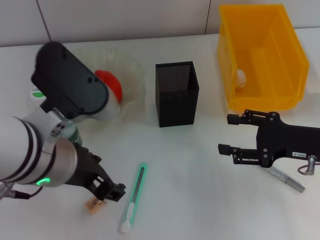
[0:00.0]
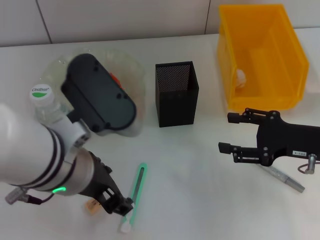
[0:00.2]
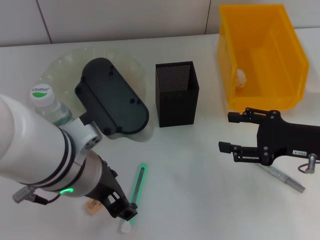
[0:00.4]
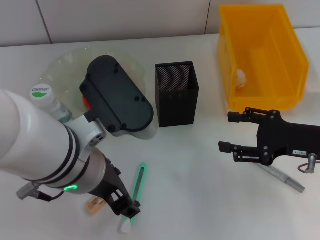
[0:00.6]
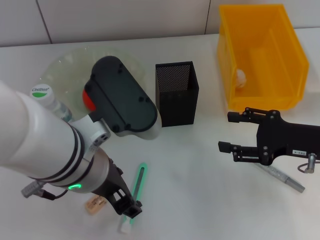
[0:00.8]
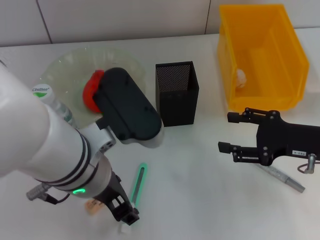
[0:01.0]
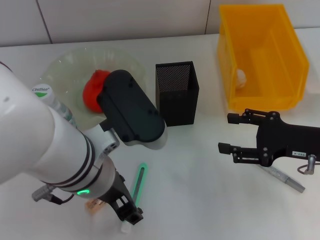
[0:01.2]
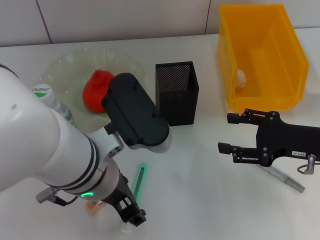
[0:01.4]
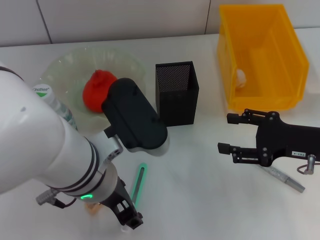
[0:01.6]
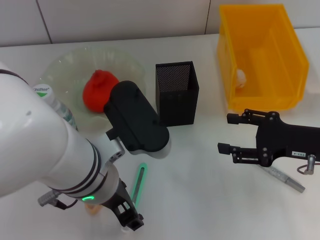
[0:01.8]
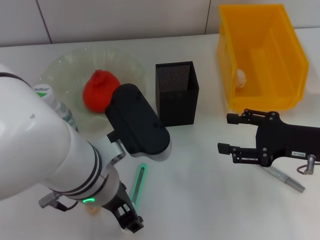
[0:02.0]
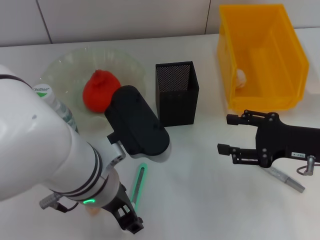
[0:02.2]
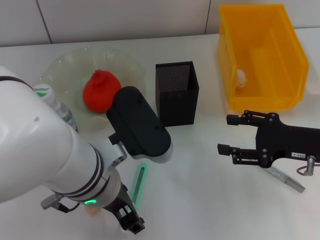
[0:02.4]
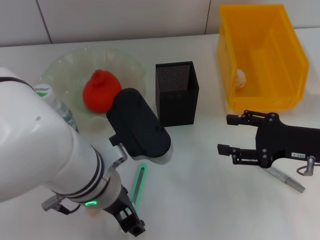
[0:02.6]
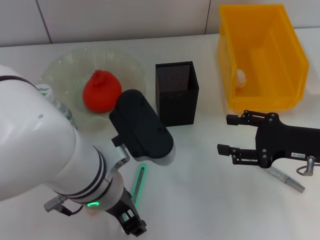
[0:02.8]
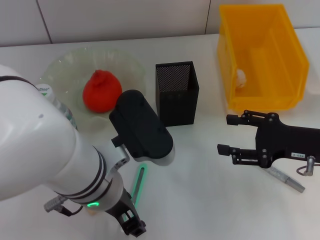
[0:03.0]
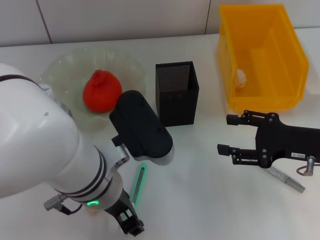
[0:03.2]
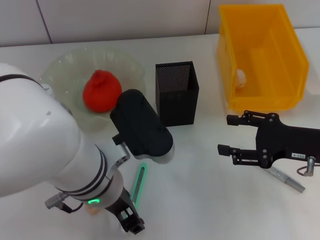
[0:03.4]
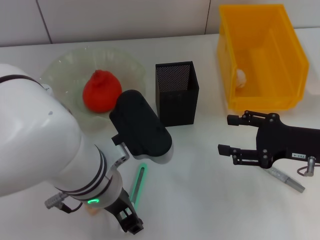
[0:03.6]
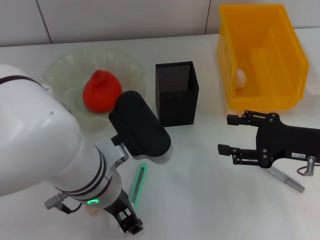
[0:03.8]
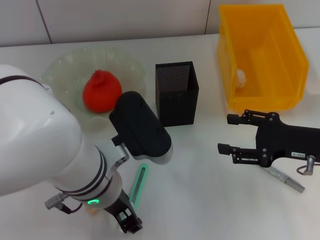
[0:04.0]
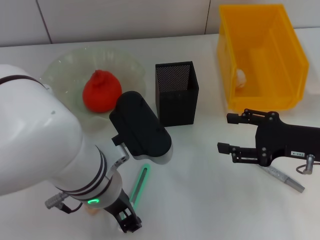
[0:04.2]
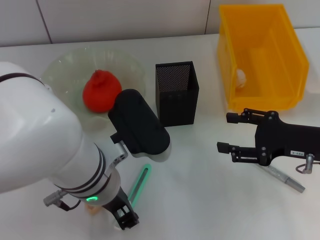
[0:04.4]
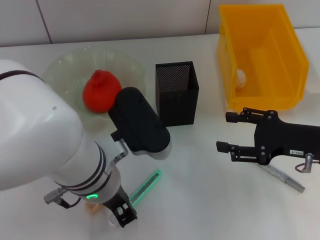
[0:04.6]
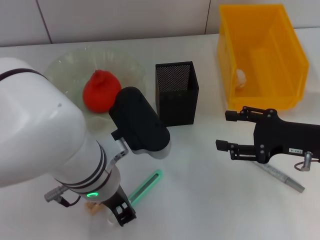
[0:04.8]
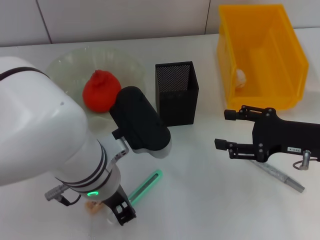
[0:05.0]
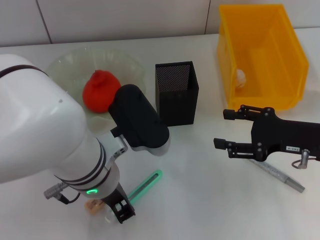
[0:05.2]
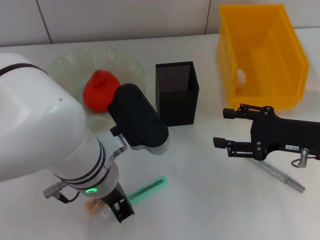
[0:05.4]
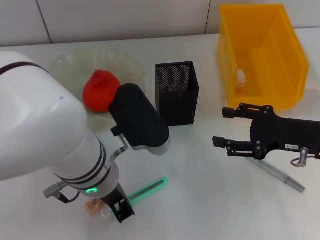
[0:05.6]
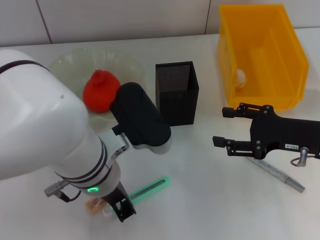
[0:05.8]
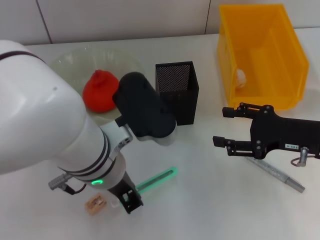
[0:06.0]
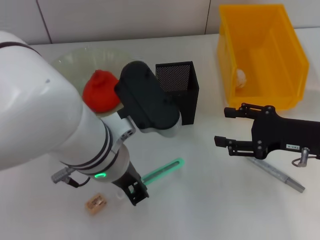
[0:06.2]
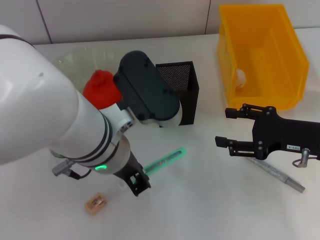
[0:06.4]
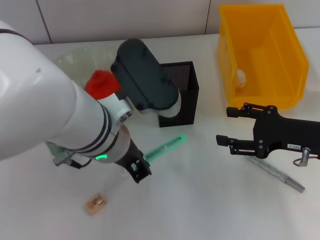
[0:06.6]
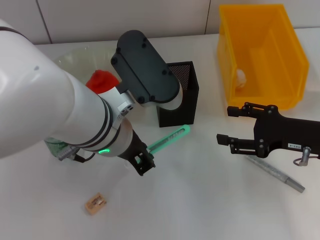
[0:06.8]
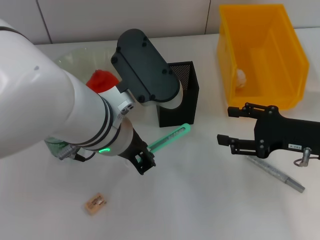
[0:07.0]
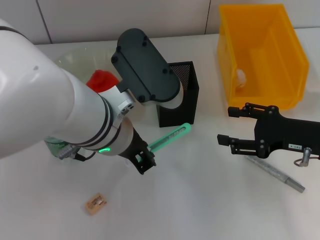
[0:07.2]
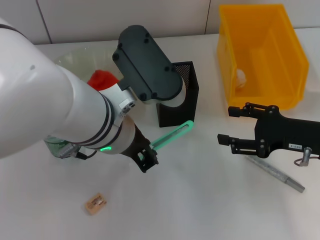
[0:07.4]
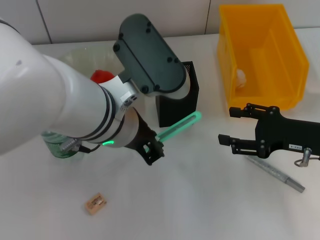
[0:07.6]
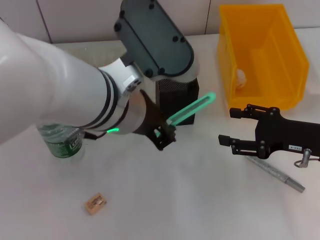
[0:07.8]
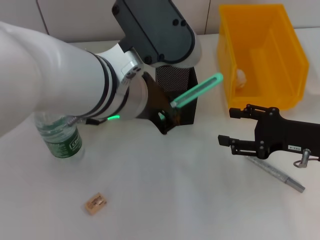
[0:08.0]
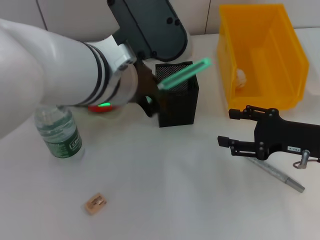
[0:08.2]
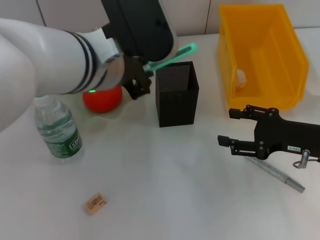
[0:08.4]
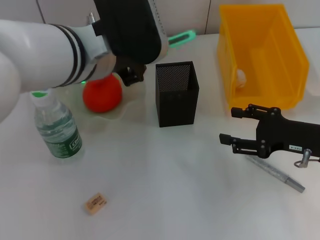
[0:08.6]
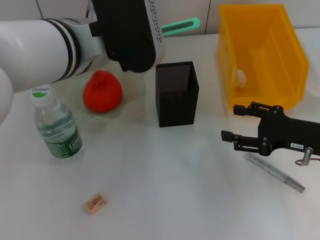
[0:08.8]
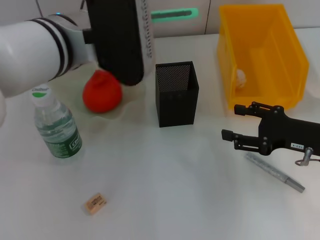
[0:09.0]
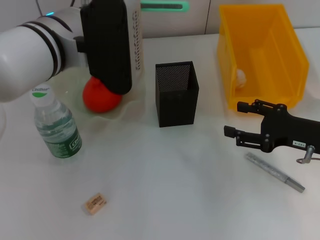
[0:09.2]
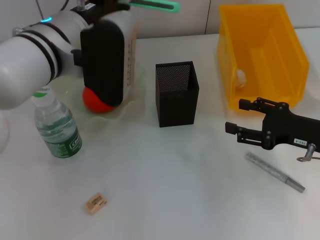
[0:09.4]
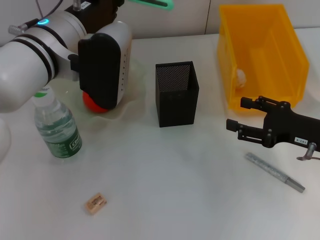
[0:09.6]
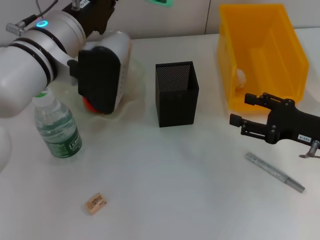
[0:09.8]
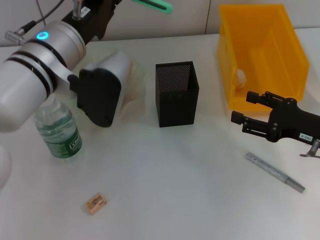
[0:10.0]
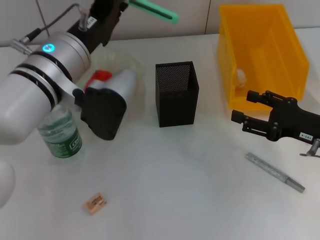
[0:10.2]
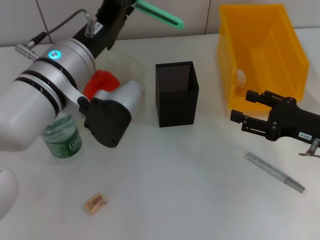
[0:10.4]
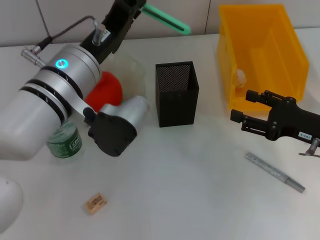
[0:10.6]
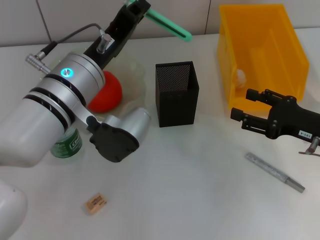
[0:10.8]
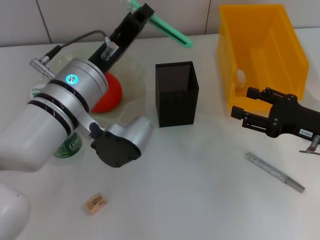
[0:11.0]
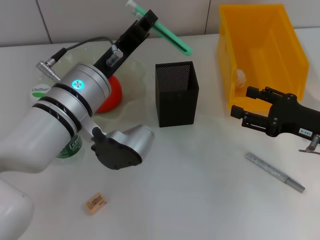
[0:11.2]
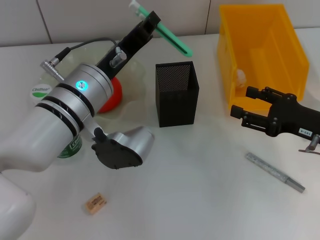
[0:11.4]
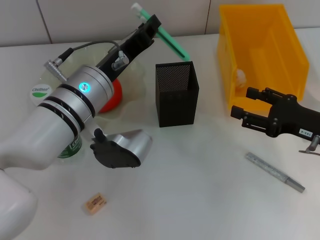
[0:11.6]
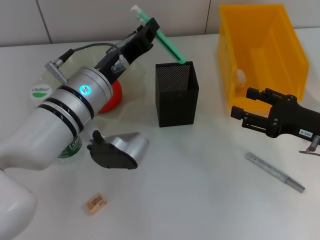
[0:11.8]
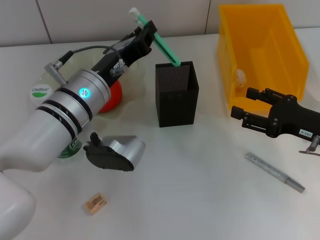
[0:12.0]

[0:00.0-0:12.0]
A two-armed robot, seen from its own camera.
Step, 0:00.0 to 0:05.4: Grab the blue utility knife with the left hand.
0:00.0 to 0:01.6: The left gripper shifts by approximately 5 cm.
0:01.6 to 0:03.0: The two grippers keep their place.
0:03.0 to 0:04.4: Neither gripper changes place.
0:04.4 to 0:06.0: The left gripper closes up.
0:07.6 to 0:09.0: The left gripper travels forward by about 5 cm.
0:09.0 to 0:10.4: The left gripper travels downward by about 5 cm.
0:10.4 to 0:12.0: The left gripper ends up roughly 5 cm from where it was.

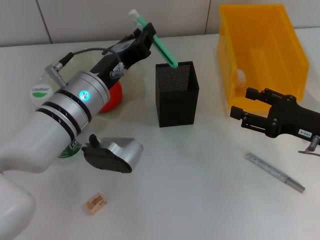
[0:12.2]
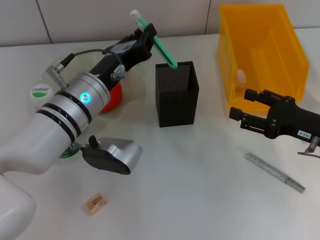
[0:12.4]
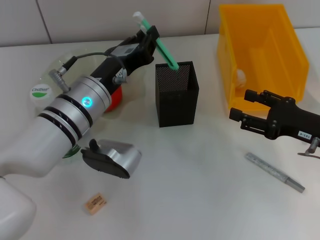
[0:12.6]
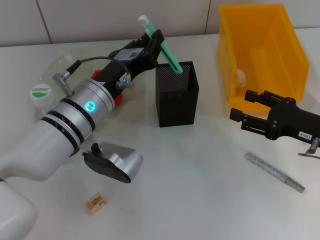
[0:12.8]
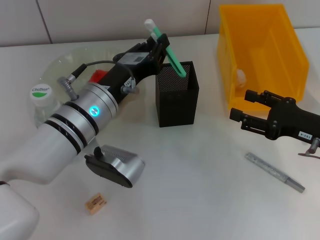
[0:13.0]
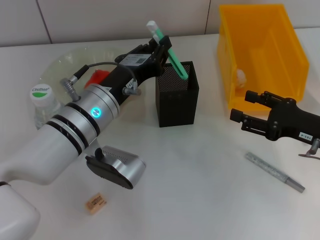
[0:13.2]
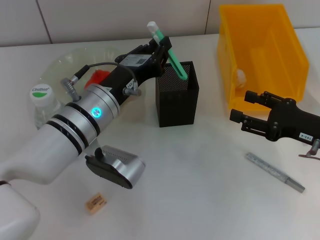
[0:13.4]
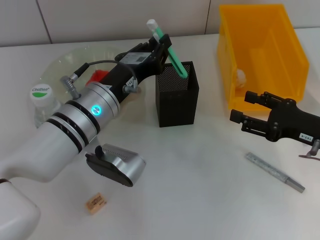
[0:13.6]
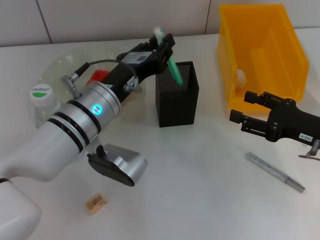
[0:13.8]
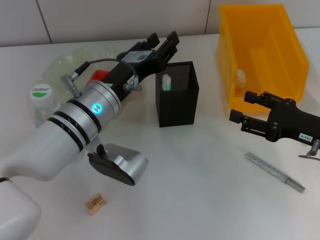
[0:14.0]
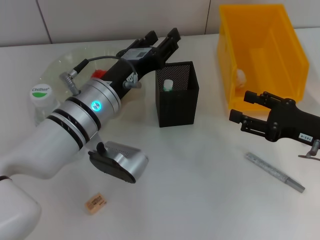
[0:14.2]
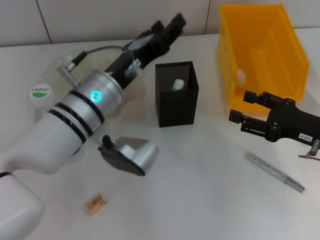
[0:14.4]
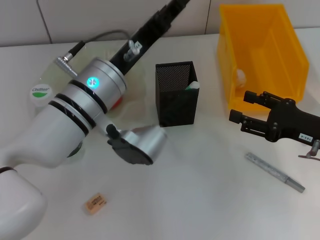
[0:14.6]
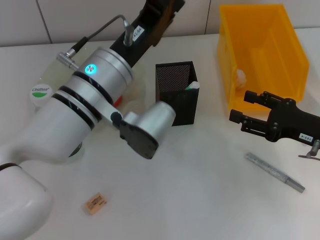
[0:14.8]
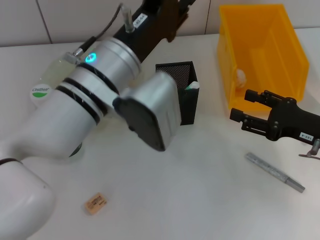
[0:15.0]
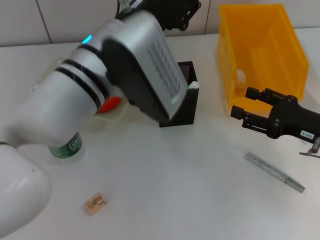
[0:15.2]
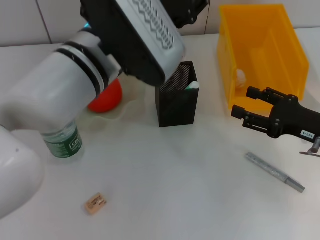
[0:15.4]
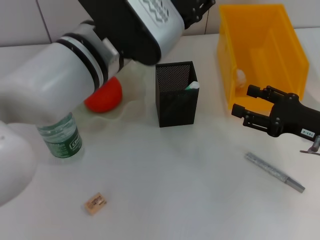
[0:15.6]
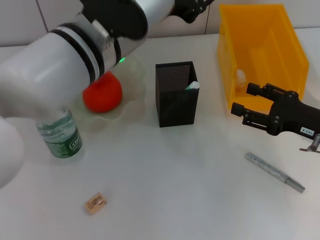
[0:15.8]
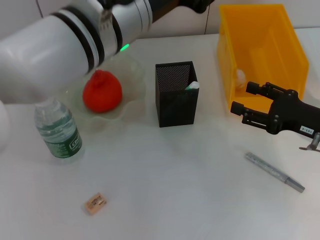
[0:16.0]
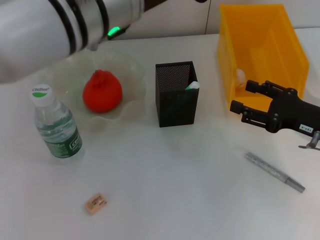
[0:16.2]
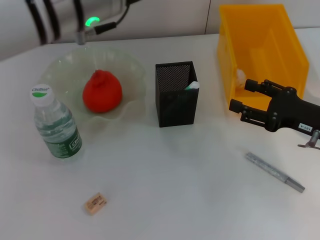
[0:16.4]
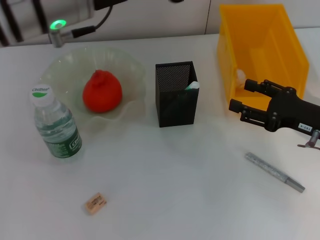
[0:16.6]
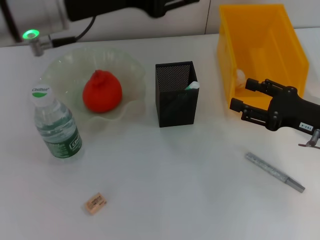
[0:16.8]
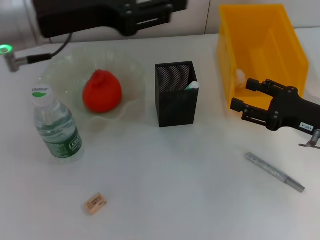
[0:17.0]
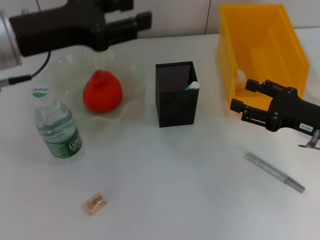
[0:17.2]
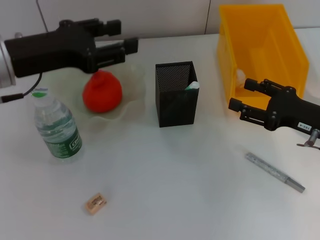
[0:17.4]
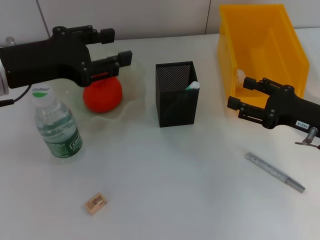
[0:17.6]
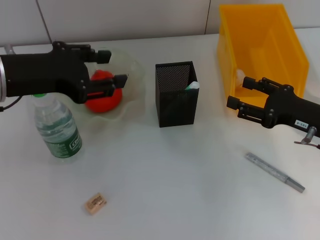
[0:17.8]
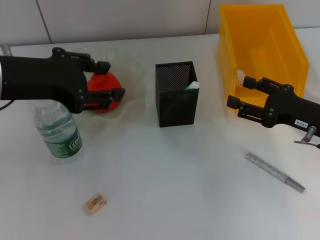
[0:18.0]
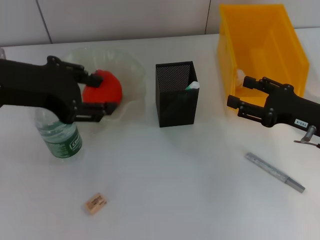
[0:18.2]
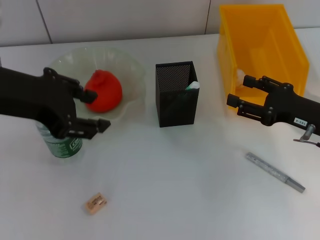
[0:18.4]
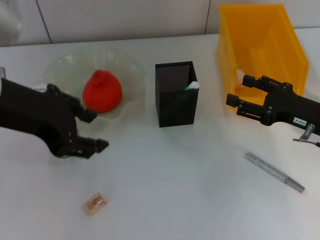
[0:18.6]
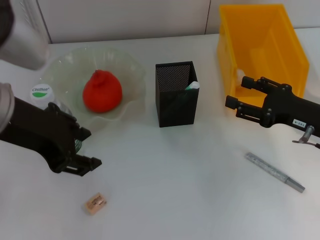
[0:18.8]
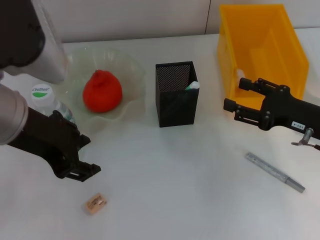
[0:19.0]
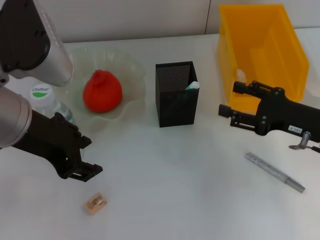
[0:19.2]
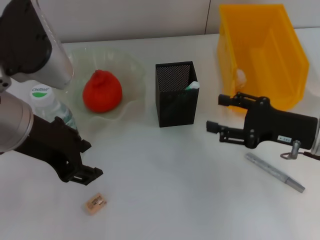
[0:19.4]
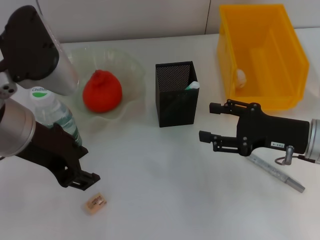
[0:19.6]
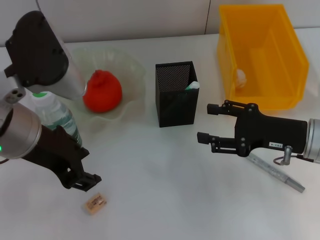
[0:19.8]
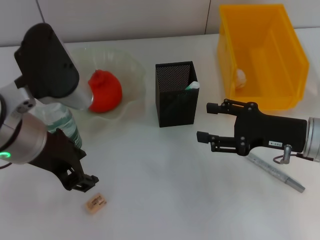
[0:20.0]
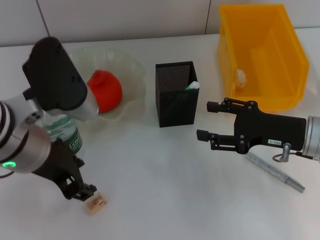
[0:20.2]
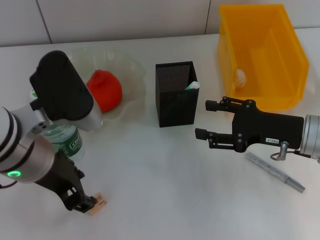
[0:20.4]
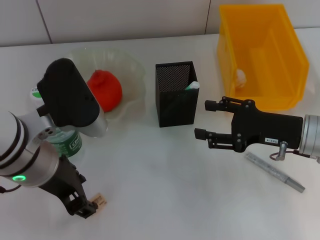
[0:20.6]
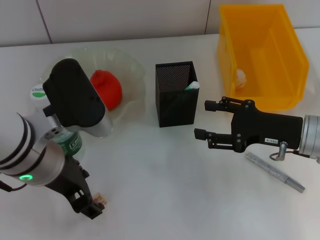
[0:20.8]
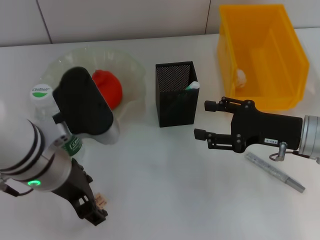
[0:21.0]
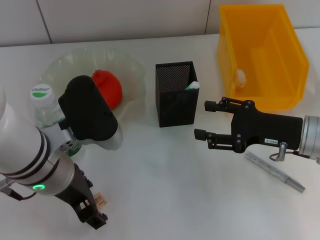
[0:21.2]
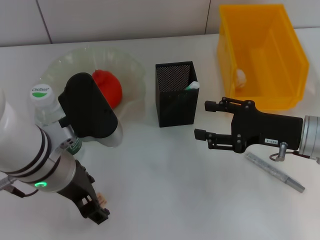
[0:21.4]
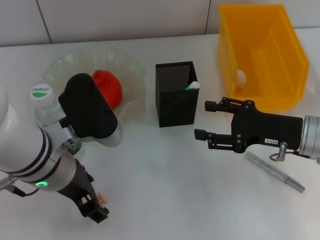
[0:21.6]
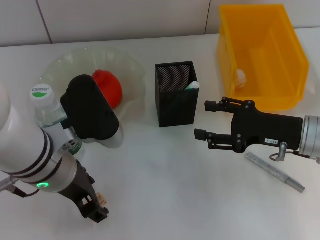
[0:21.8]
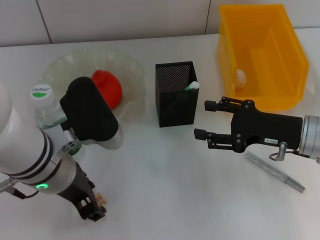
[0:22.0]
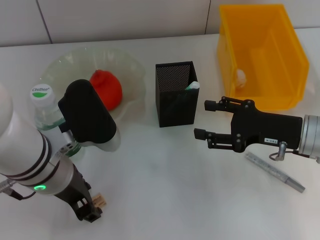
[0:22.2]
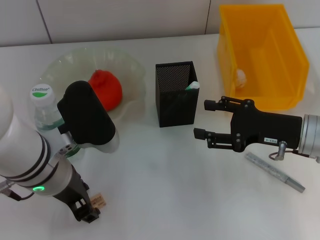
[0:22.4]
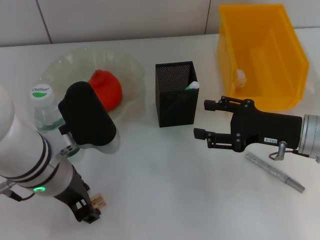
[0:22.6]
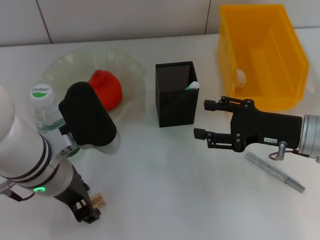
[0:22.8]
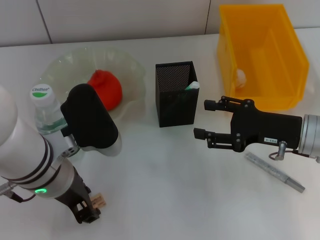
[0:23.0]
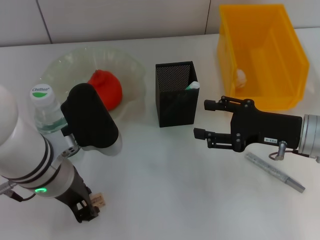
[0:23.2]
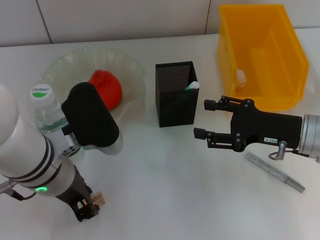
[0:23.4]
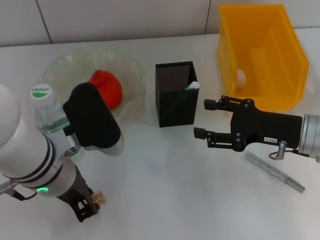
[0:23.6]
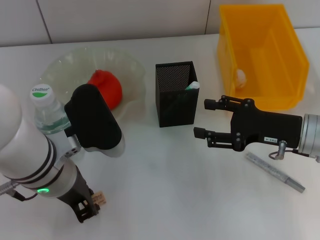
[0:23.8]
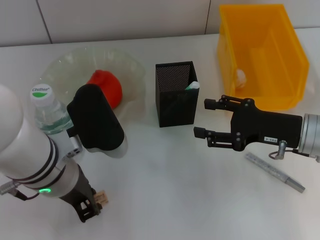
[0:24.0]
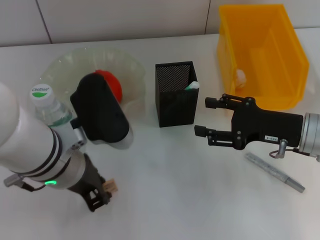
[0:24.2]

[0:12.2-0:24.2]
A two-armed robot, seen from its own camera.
Step, 0:12.2 to 0:14.6: Place the blue utility knife into the pen holder with the left hand.
Step, 0:14.8 to 0:23.4: Grab the eraser with the left hand.
0:12.2 to 0:13.8: There are only small adjustments of the grippers.
0:13.8 to 0:15.2: The left gripper moves upward, approximately 10 cm, and opens.
0:15.2 to 0:16.6: The left gripper heads upward and to the left, covering about 10 cm.
0:16.6 to 0:18.2: The left gripper goes approximately 10 cm to the left.
0:18.2 to 0:19.8: The left gripper moves roughly 5 cm.
0:19.8 to 0:21.2: The left gripper moves downward, some 5 cm.
0:21.2 to 0:22.6: The left gripper closes its fingers.
0:22.6 to 0:24.2: The left gripper closes up.
